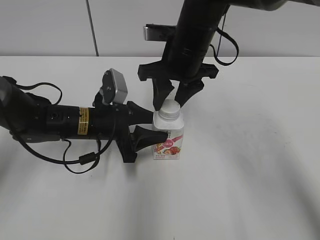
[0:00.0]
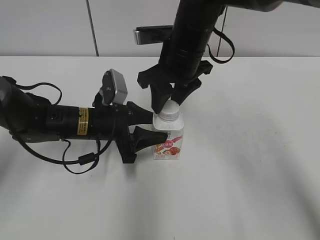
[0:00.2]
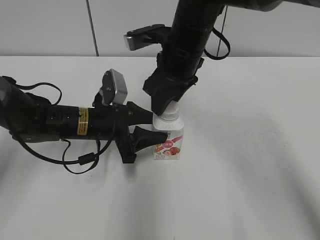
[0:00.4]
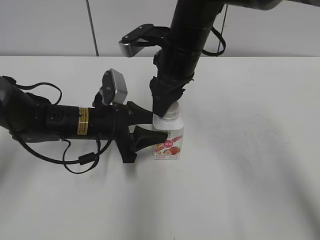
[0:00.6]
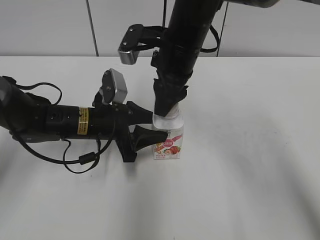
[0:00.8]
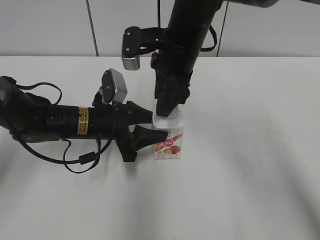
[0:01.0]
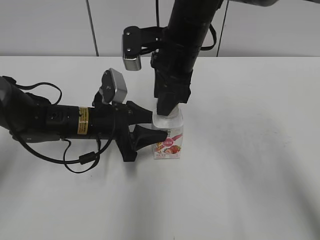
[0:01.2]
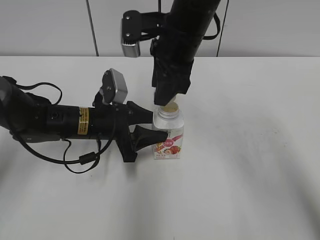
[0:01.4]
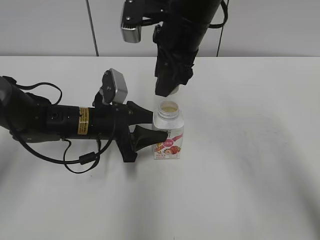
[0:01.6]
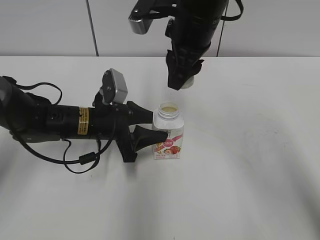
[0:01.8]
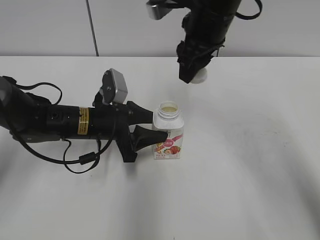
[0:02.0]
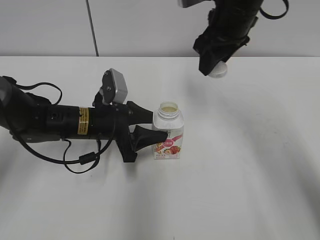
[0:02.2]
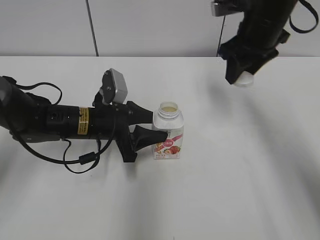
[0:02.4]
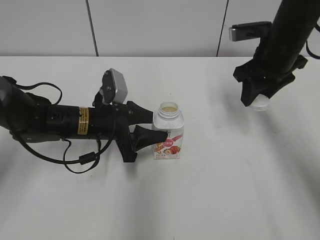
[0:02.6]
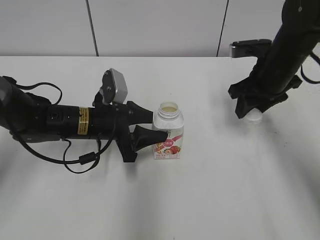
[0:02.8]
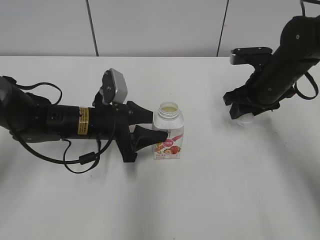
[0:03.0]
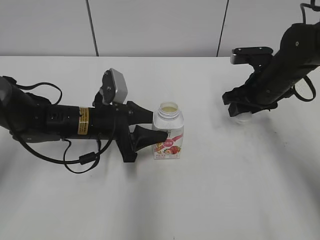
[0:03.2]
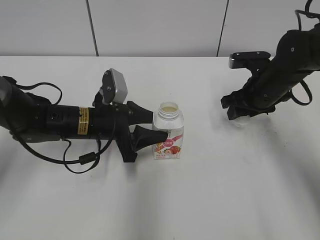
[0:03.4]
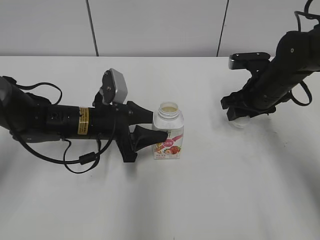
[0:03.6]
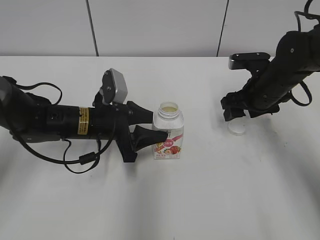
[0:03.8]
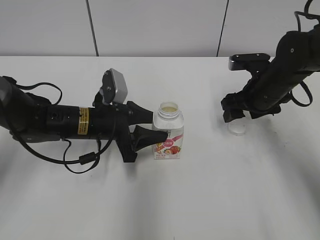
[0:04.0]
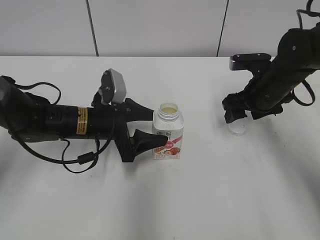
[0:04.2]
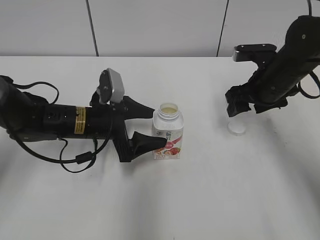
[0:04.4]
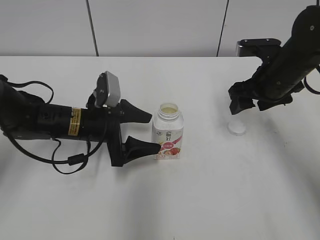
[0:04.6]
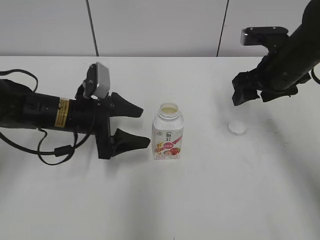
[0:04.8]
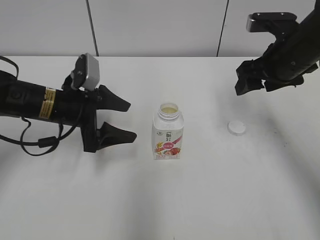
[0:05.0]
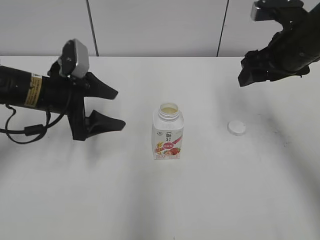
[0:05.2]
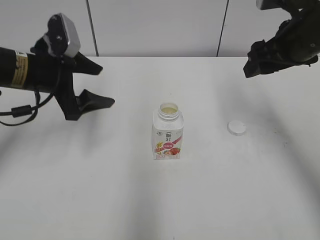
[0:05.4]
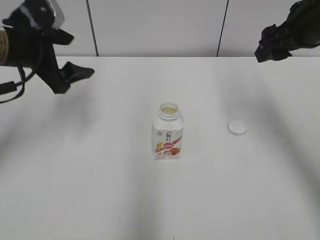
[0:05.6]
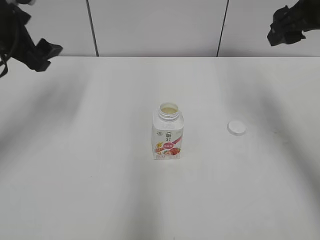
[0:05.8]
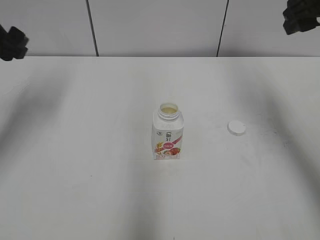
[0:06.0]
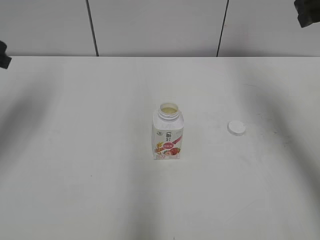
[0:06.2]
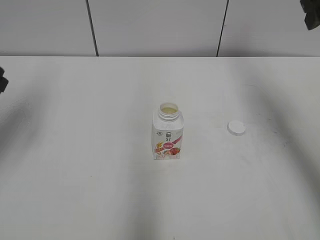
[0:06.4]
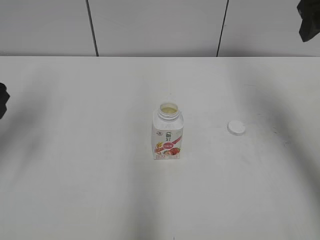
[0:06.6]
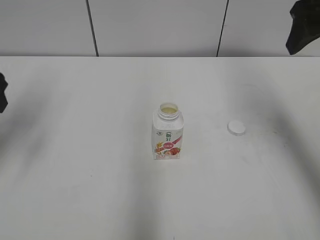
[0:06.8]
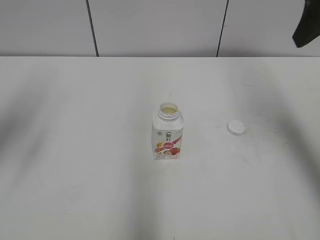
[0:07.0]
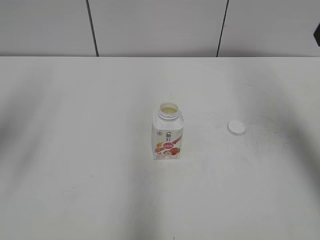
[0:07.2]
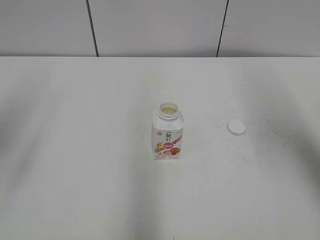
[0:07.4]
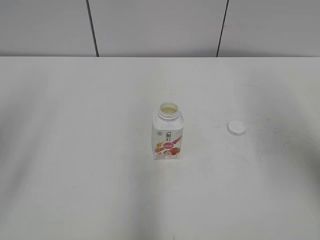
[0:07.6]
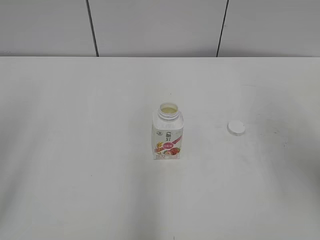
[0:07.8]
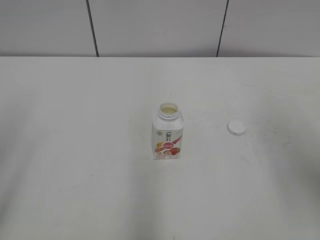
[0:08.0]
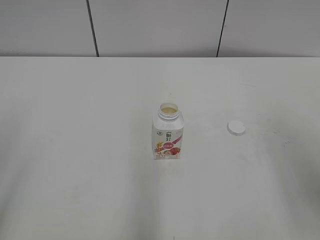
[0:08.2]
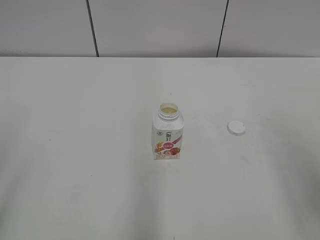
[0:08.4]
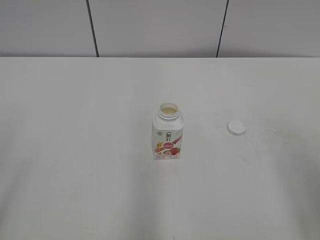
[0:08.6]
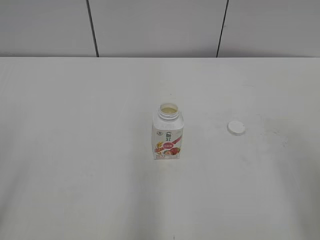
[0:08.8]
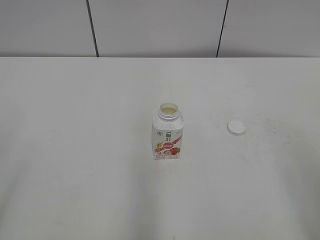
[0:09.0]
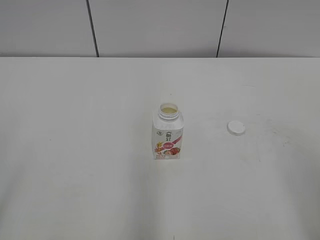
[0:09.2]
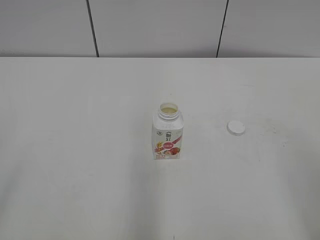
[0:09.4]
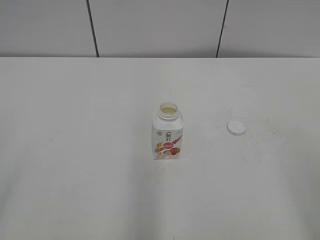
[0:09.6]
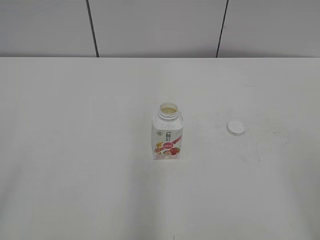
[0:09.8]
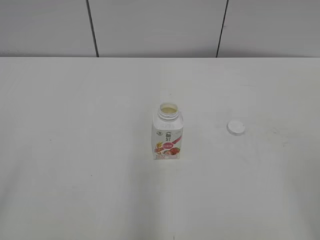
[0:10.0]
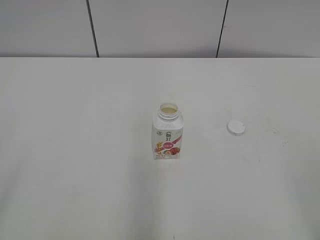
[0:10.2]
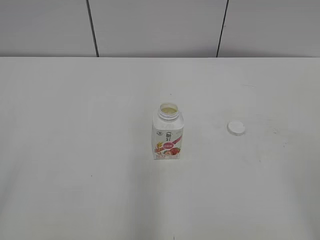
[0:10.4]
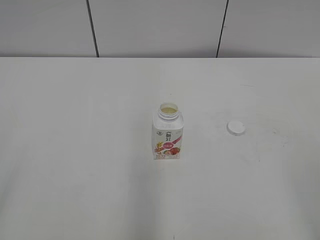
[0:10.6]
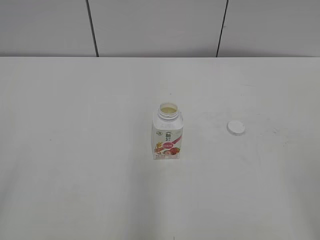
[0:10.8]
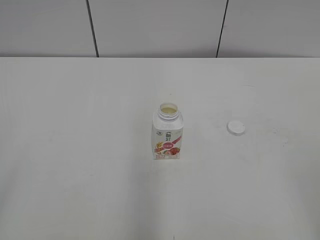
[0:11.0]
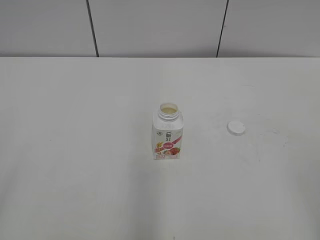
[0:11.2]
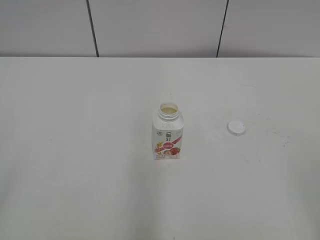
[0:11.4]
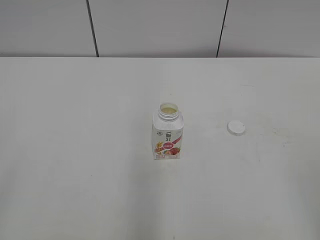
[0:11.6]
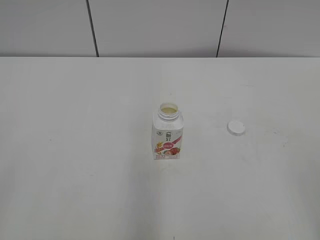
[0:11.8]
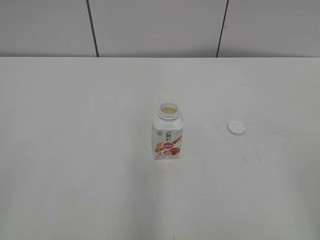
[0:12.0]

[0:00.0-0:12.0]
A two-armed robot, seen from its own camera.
Step, 0:01.4 to 0:03.6: Place the bottle cap on the right.
0:00.0 to 0:01.6: The right gripper is displaced upward by approximately 5 cm.
0:01.6 to 0:03.0: The right gripper moves to the right and downward, about 20 cm.
0:03.0 to 0:04.4: The right gripper opens. Meanwhile the left gripper opens its fingers.
0:04.4 to 0:06.0: The left gripper heads upward and to the left, covering approximately 25 cm. Meanwhile the right gripper is displaced upward by some 15 cm.
0:06.0 to 0:07.6: The left gripper shifts about 15 cm backward and upward, while the right gripper travels backward by about 15 cm.
0:07.6 to 0:09.0: The right gripper goes about 15 cm backward and downward.

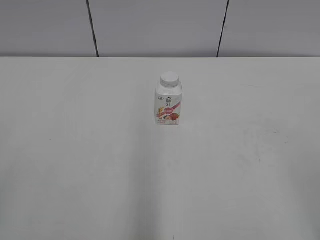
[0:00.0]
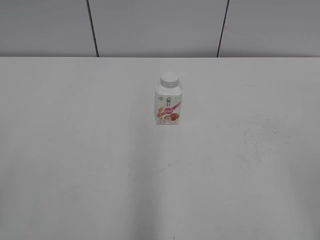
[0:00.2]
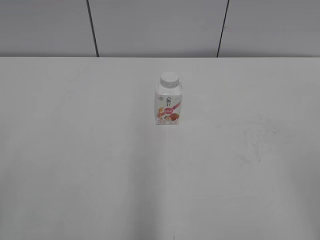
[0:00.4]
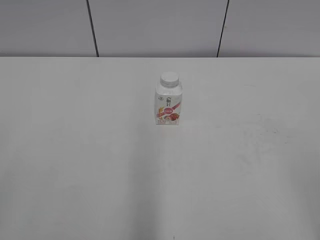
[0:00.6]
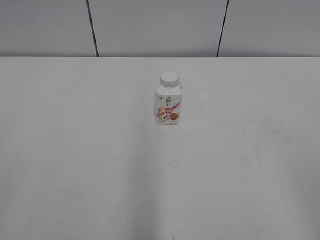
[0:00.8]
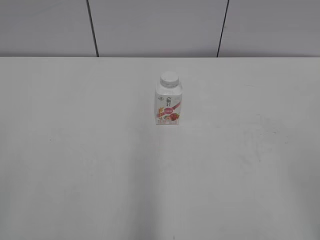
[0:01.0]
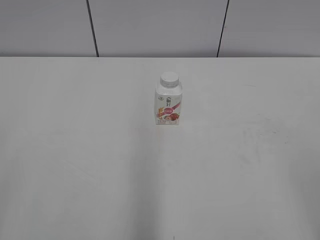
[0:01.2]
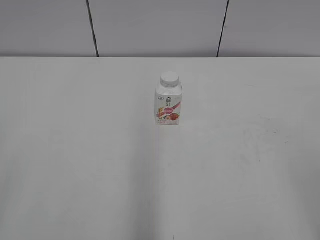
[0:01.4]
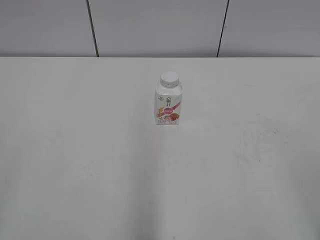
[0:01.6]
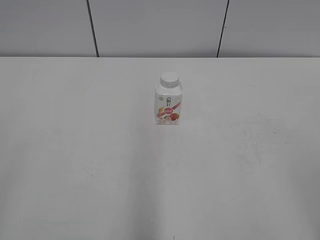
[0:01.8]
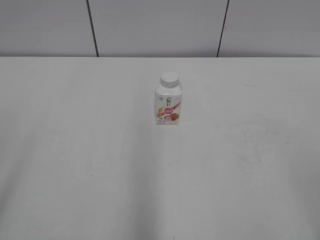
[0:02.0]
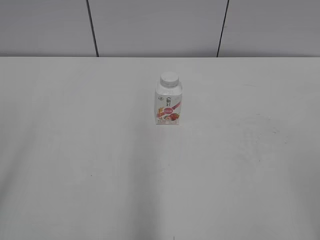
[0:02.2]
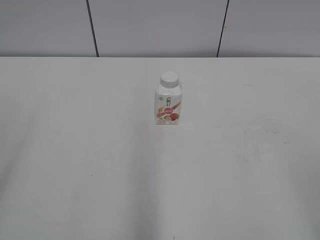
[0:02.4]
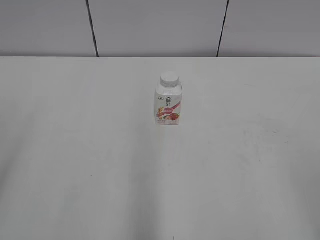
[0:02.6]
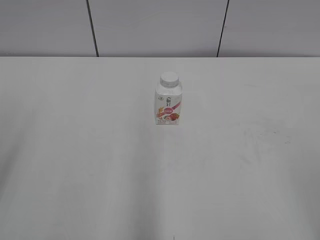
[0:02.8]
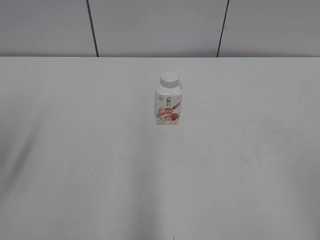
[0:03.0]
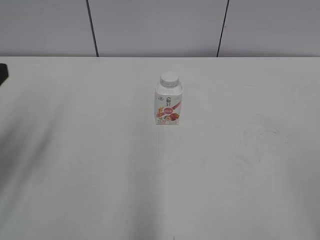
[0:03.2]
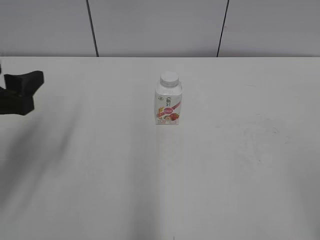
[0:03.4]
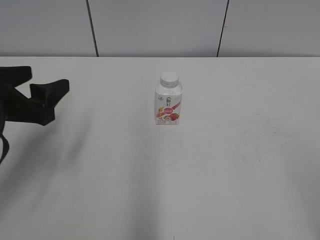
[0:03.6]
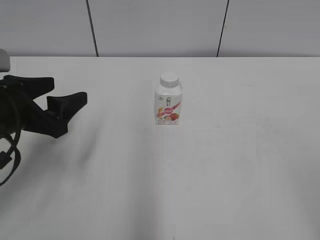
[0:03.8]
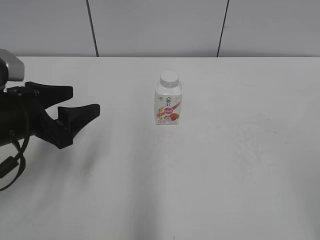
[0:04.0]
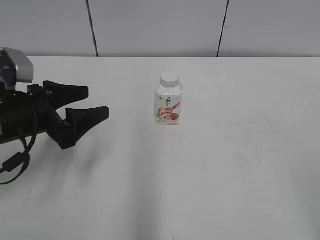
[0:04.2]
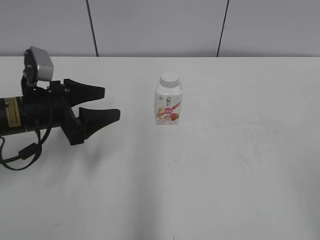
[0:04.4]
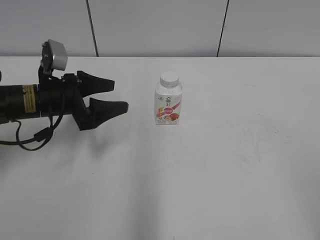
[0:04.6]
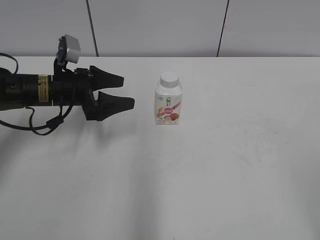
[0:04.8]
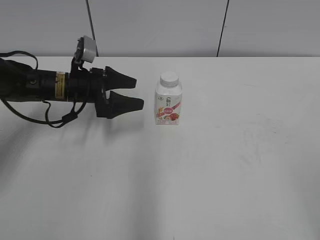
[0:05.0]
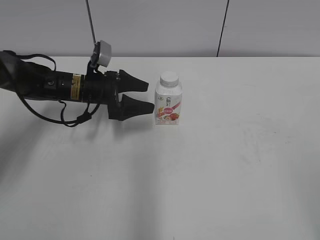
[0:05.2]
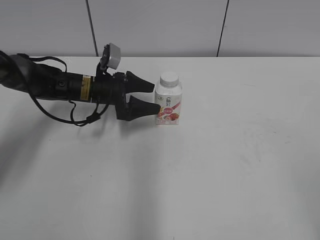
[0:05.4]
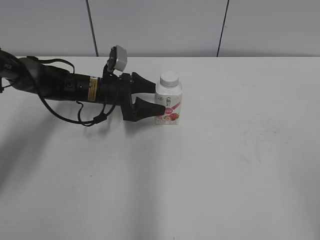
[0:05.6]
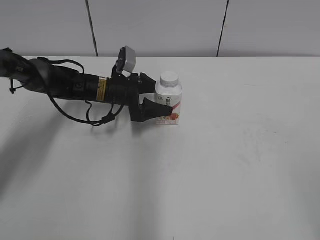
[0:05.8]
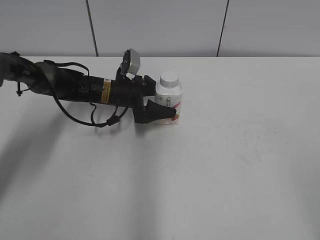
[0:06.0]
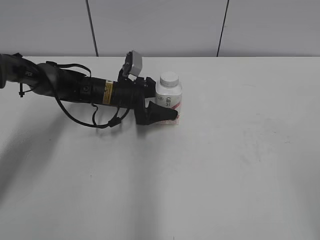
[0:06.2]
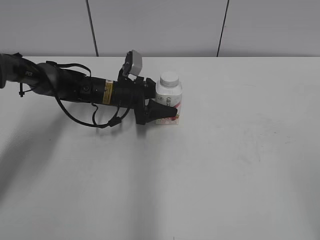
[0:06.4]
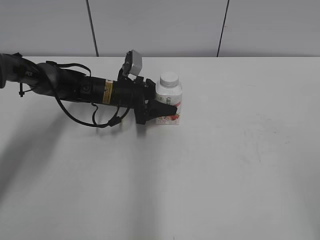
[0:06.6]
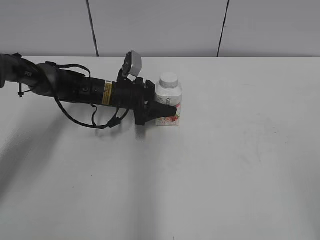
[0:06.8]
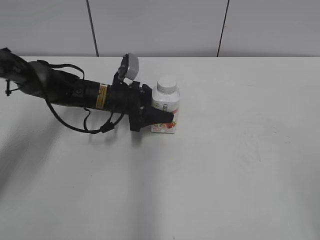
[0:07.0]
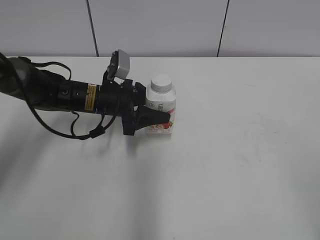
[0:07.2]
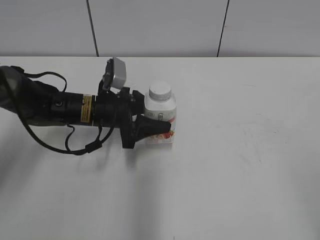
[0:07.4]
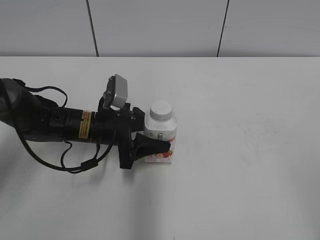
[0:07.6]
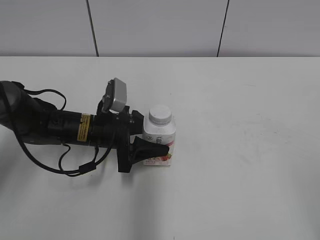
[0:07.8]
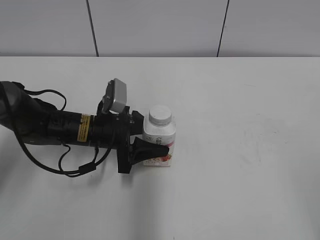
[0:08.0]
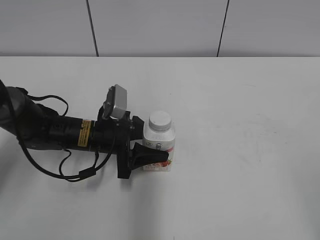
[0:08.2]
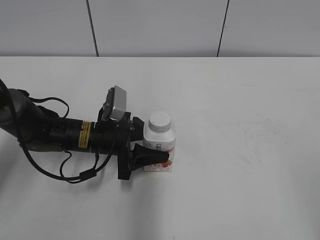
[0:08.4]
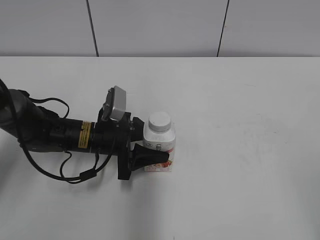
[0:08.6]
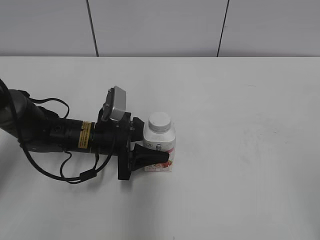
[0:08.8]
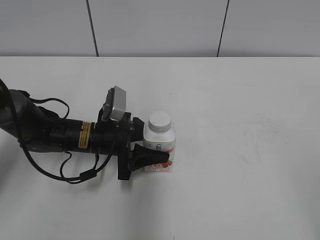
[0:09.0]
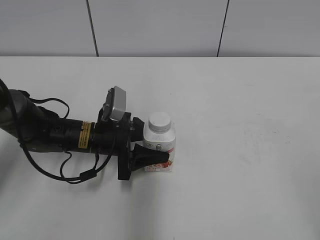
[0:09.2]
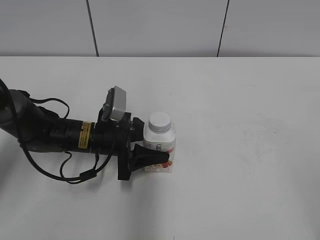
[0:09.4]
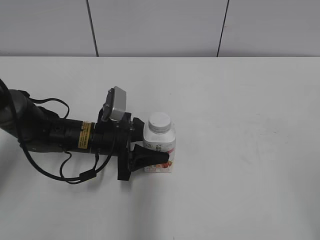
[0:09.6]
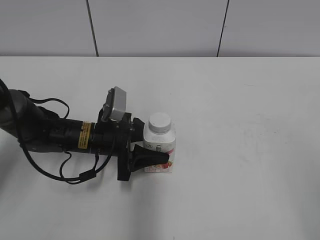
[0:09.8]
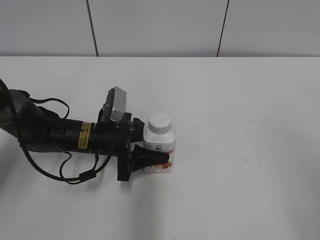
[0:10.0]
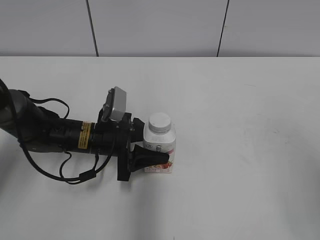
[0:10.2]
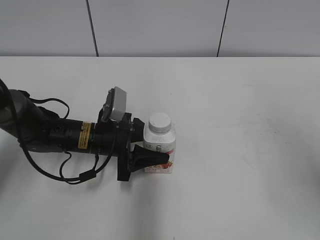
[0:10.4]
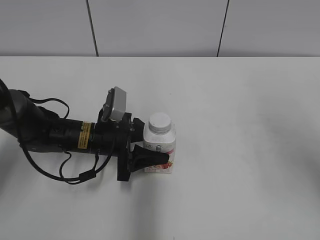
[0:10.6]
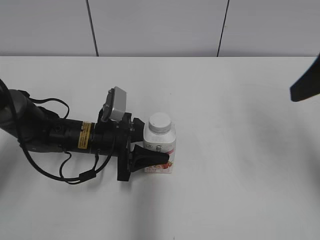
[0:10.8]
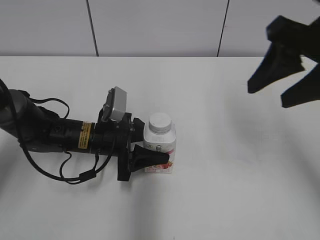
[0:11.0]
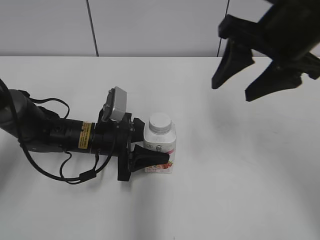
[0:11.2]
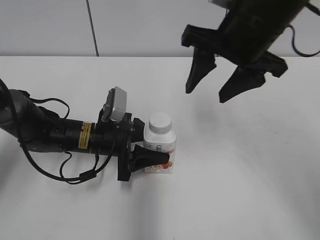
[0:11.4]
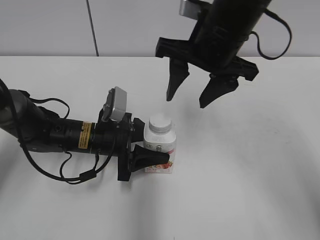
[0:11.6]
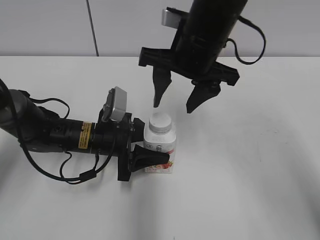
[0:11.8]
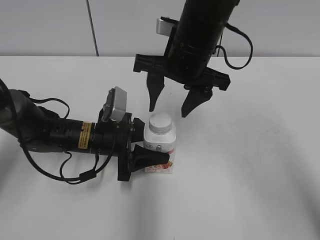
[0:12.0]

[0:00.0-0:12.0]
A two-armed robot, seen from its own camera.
Step, 0:00.0 to 0:06.6: Grab the Yili Changqing with the left hand.
Step, 0:06.8 to 0:09.2: Move the Yili Changqing from left to right.
0:01.6 to 0:03.0: The left gripper goes some 15 cm forward.
0:03.0 to 0:04.4: The left gripper travels forward, downward and to the right by about 20 cm.
0:04.4 to 0:06.0: The left gripper shifts approximately 20 cm forward, to the right and downward.
0:06.0 to 0:07.6: The left gripper goes approximately 10 cm backward, and closes.
0:07.6 to 0:09.0: The grippers move only a little.
0:09.0 to 0:10.4: The right gripper travels forward and upward by approximately 15 cm.
0:10.4 to 0:12.0: The right gripper goes approximately 30 cm to the left, forward and downward.
